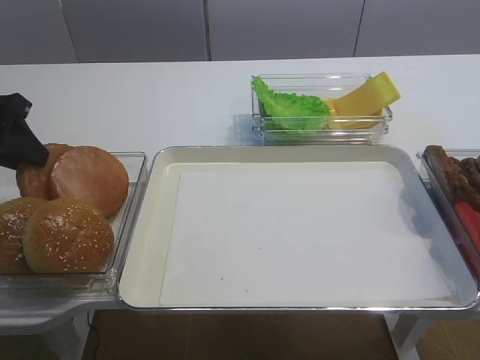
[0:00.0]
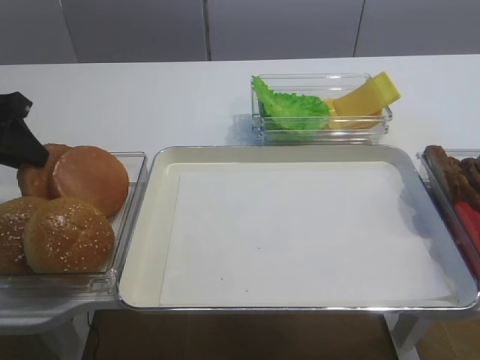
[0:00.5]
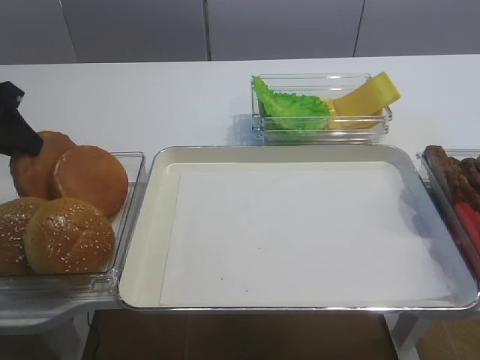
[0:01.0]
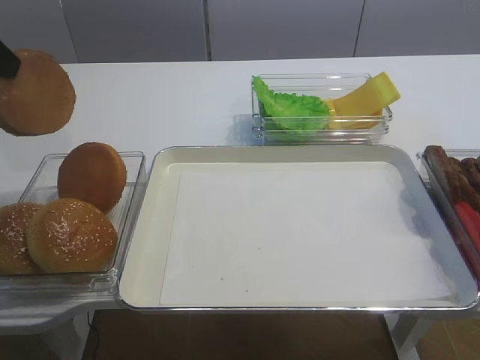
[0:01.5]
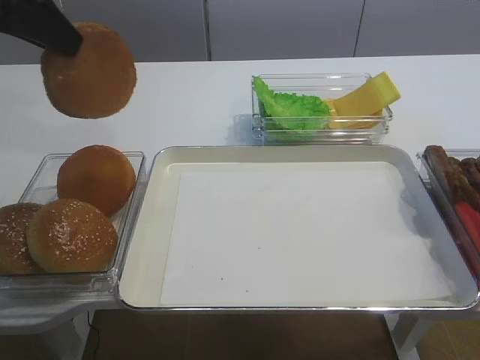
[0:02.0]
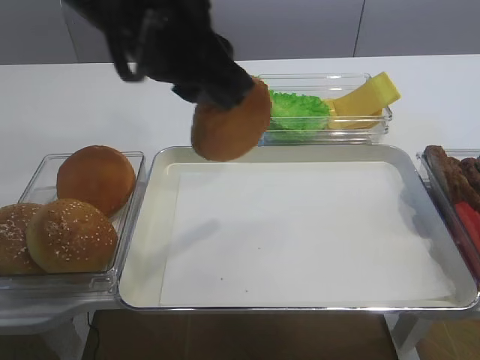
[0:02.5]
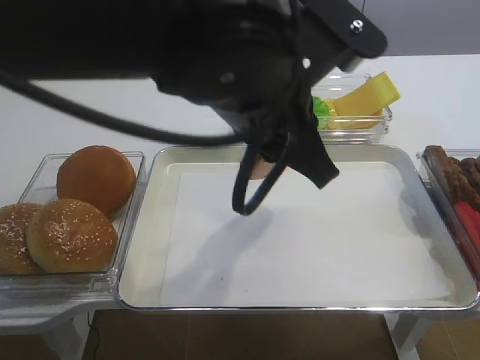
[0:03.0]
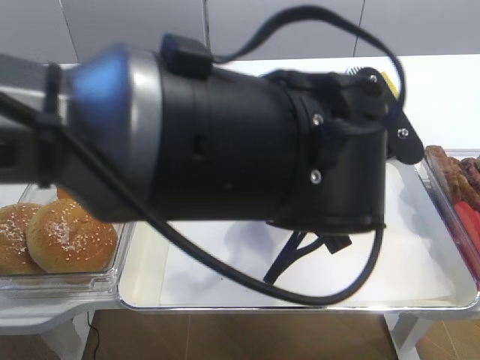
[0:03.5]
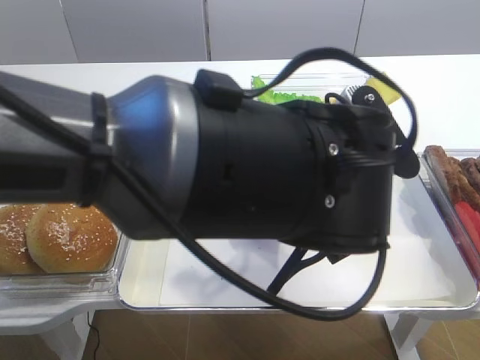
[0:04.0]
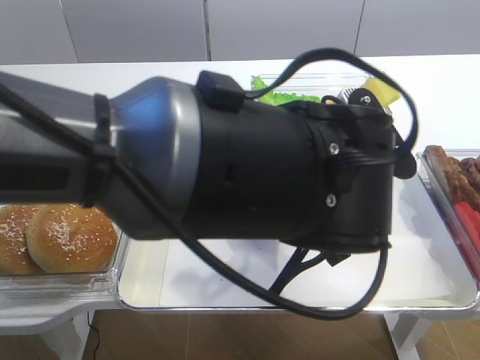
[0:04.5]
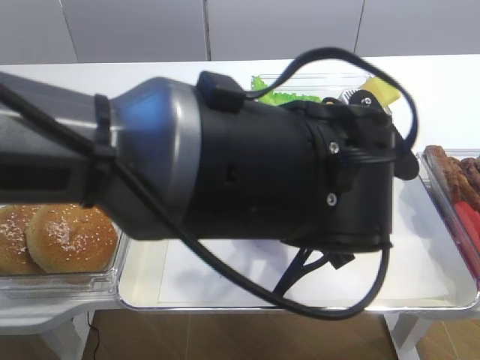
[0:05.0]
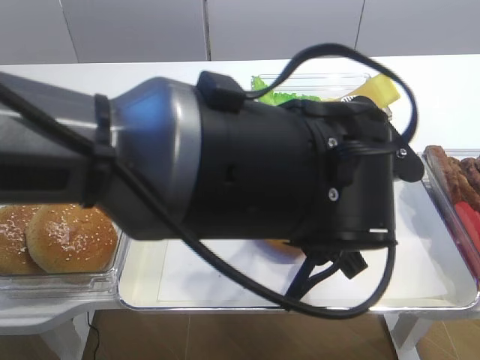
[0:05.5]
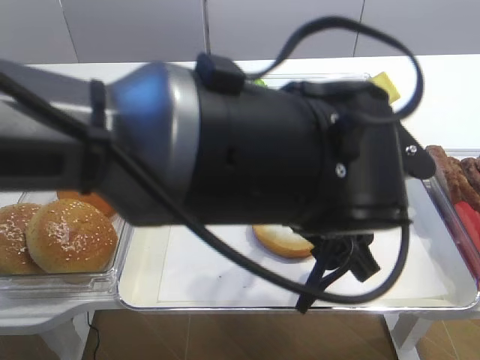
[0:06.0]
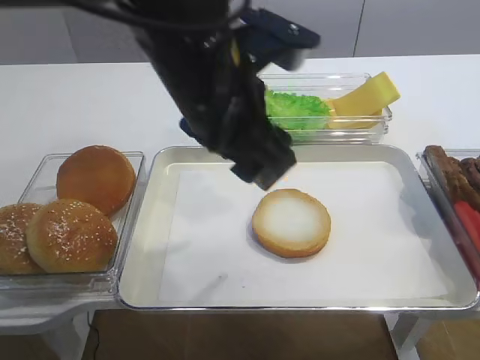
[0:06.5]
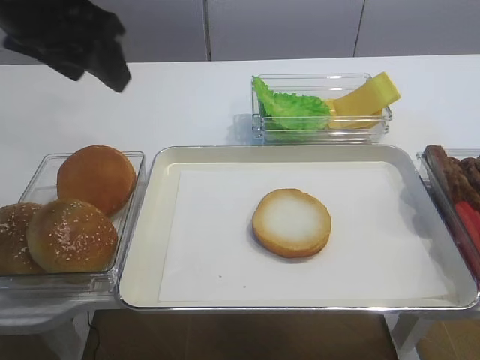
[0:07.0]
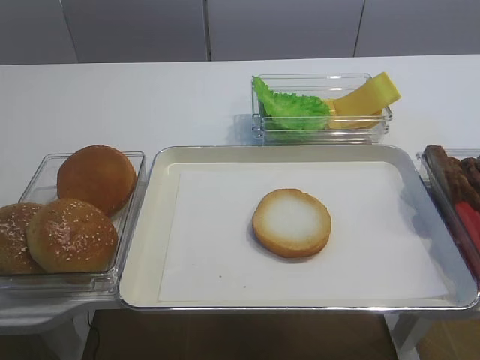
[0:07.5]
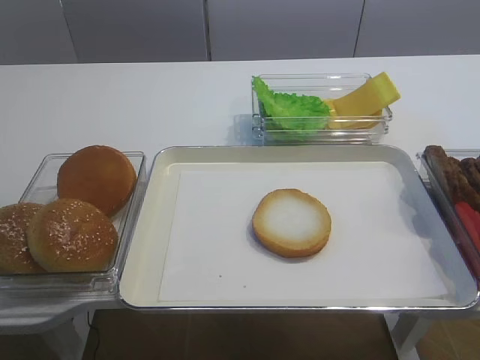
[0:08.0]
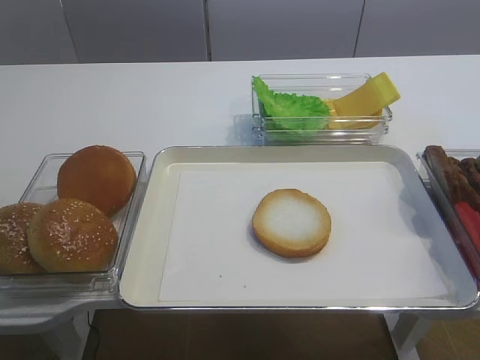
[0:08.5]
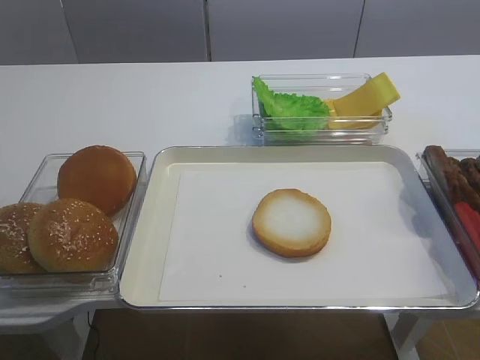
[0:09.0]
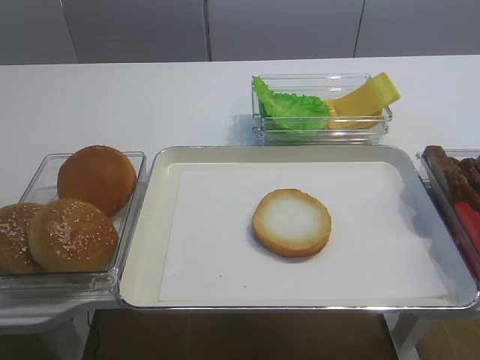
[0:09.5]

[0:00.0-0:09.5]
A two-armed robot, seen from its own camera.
Step, 0:01.5 to 0:06.0: Place the bread slice on the tray with the left gripper.
0:00.0 to 0:02.0: The left gripper moves upward and to the right, roughly 15 cm.
0:02.0 to 0:04.0: The left gripper shifts some 30 cm to the right and downward.
0:04.0 to 0:05.5: The left gripper opens.
0:05.5 to 0:07.5: The left gripper shifts some 35 cm to the left and upward.

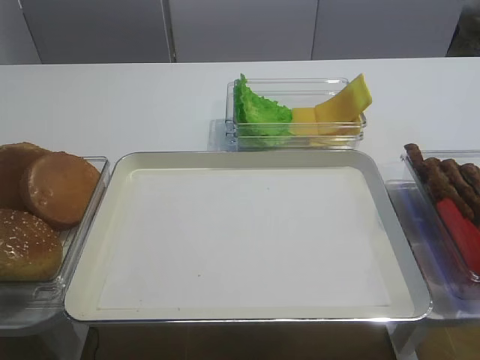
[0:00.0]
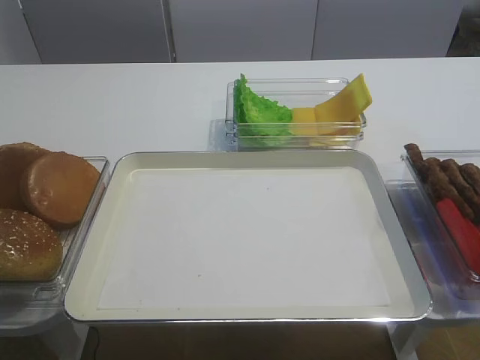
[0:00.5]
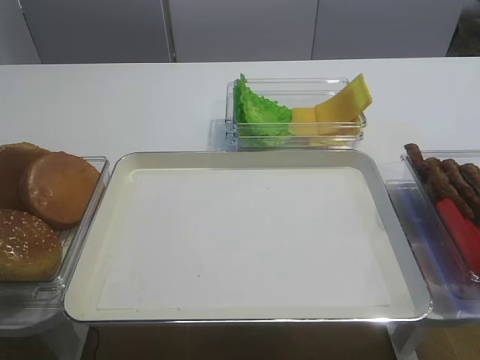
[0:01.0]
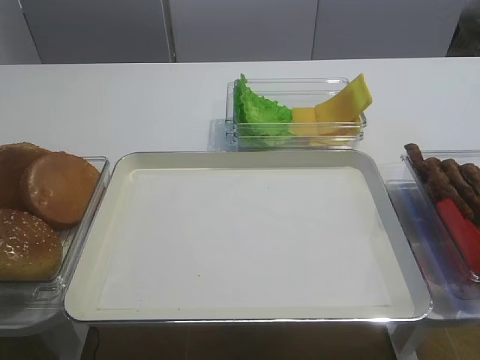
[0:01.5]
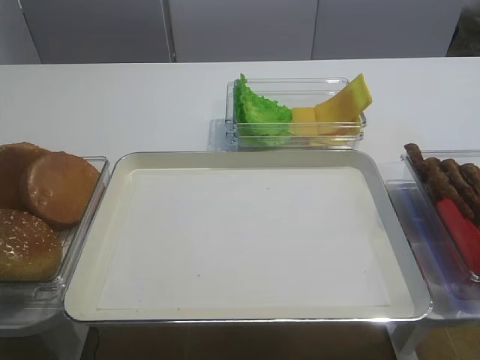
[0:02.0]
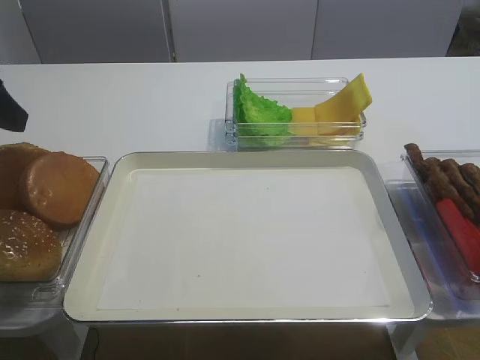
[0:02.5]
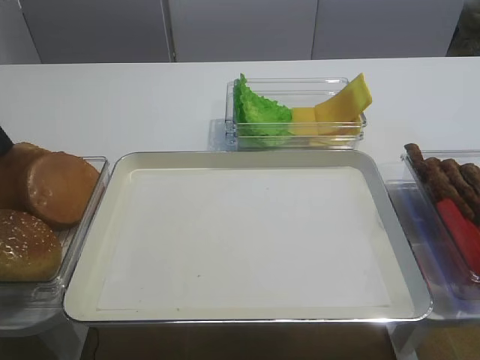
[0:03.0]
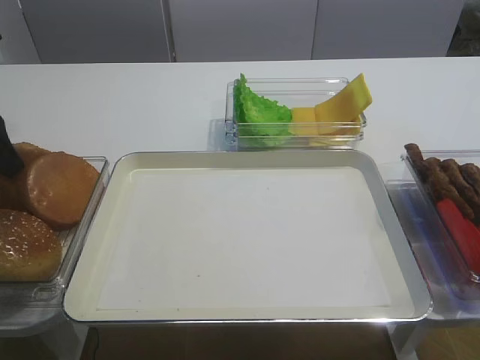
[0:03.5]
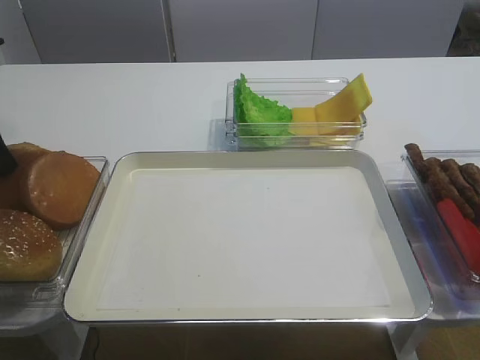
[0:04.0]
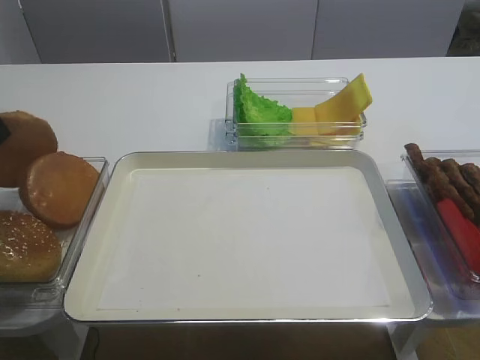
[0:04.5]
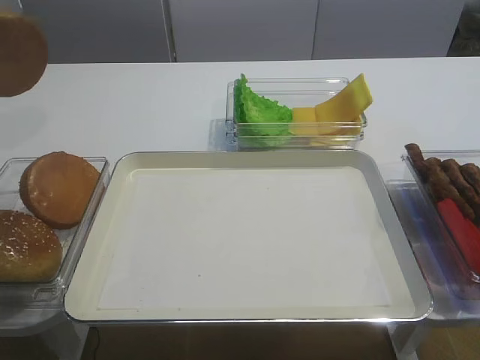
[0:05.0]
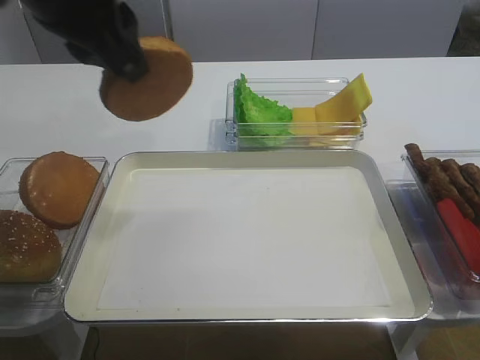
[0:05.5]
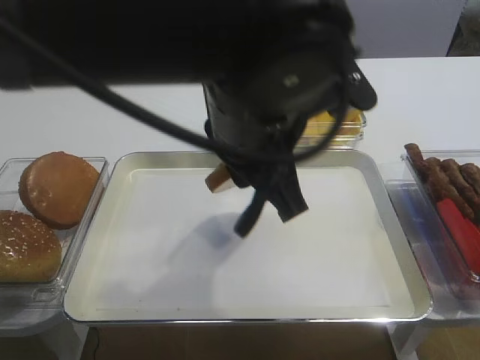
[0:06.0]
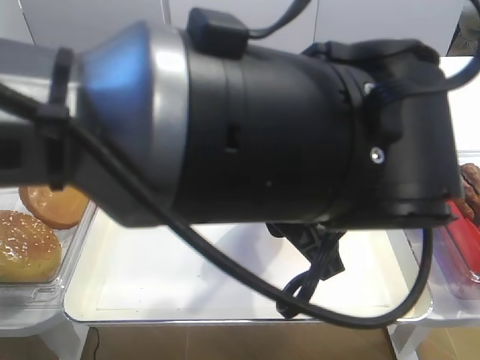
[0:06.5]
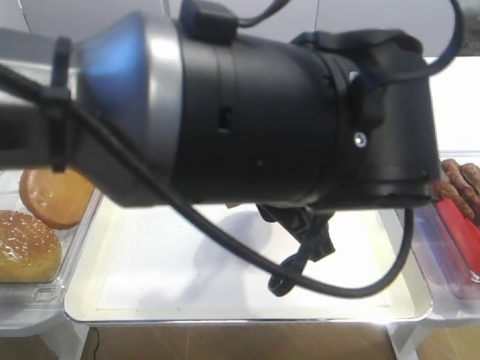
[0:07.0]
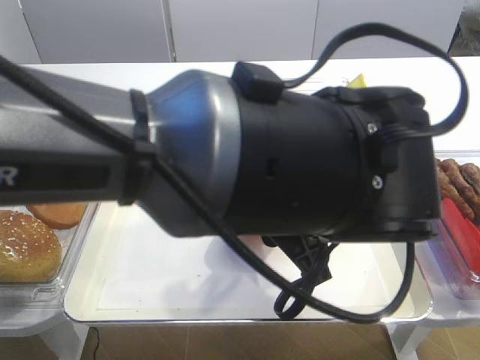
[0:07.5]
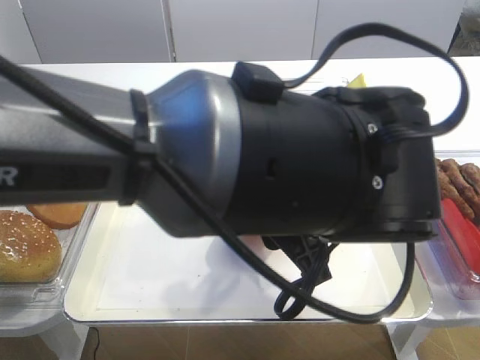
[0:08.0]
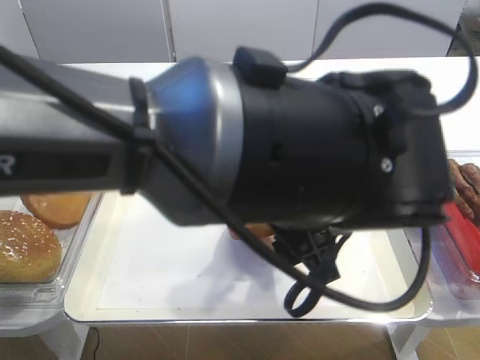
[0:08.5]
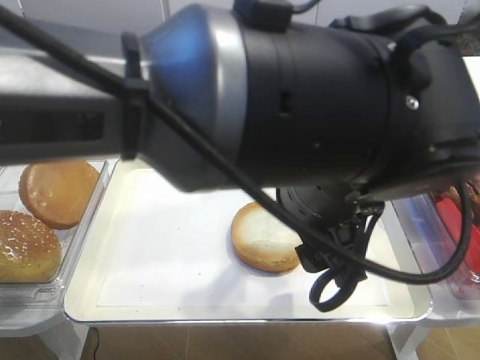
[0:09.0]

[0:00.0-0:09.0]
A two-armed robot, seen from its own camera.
0:02.0 to 0:04.5: The left gripper shifts approximately 15 cm forward, and closes.
0:04.5 to 0:07.0: The left gripper shifts about 35 cm to the right.
0:07.0 to 0:09.0: The left gripper opens its fingers.

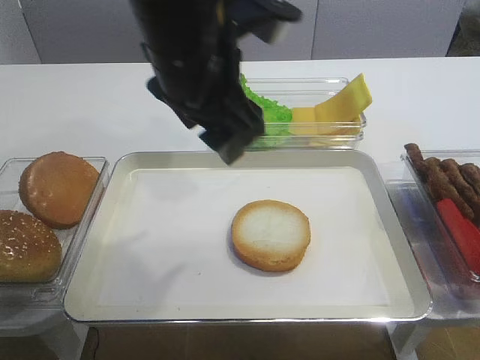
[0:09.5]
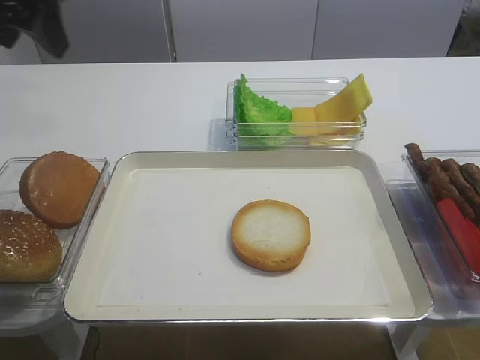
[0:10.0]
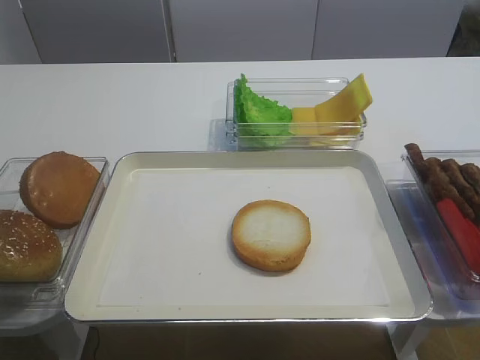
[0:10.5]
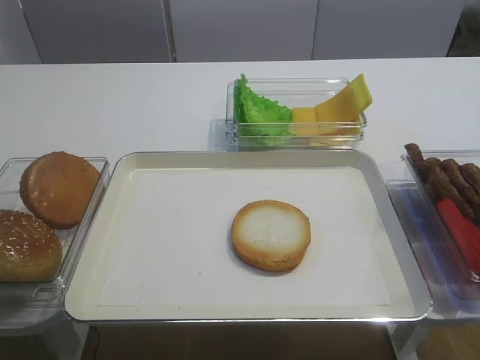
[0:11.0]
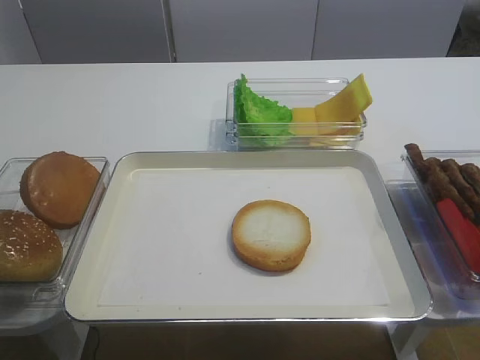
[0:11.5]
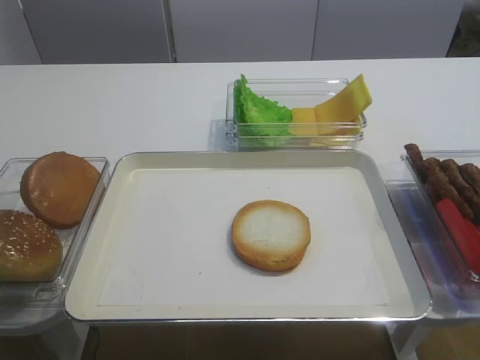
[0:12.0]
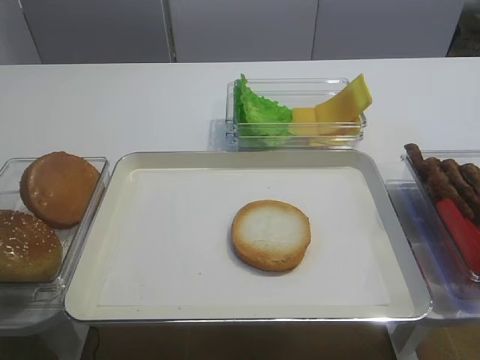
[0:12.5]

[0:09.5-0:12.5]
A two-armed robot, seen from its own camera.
0:09.5 to 0:11.0: The left gripper heads to the left and backward, covering approximately 30 cm.

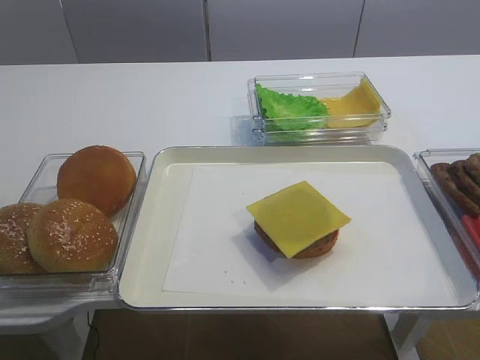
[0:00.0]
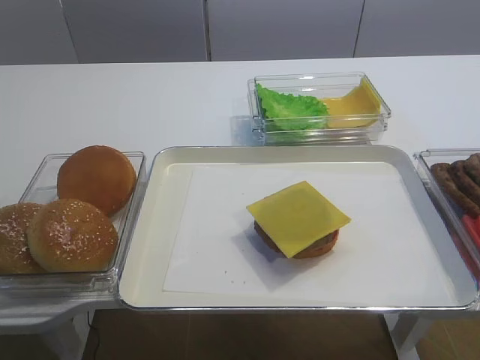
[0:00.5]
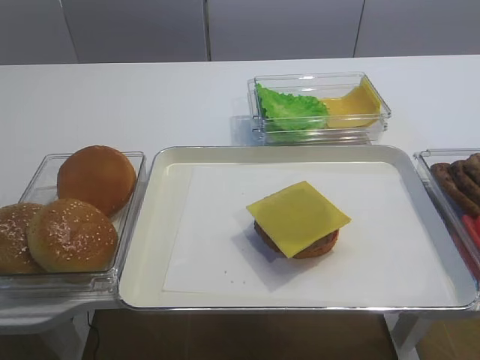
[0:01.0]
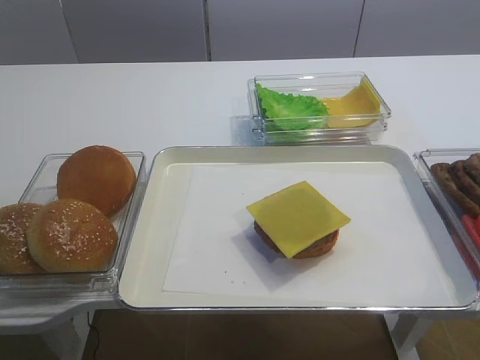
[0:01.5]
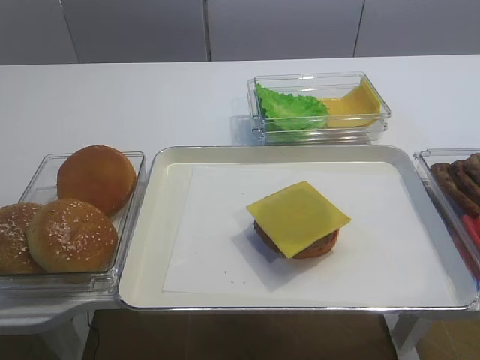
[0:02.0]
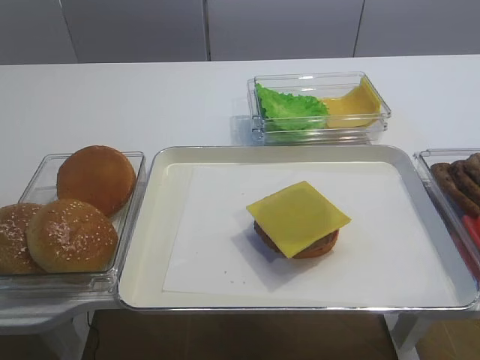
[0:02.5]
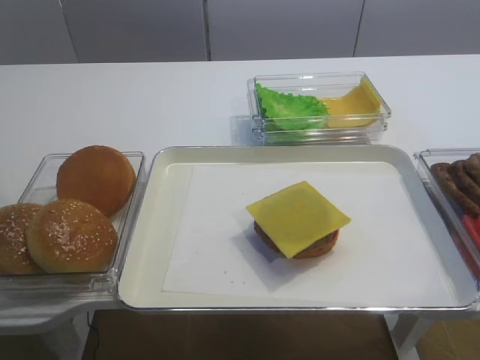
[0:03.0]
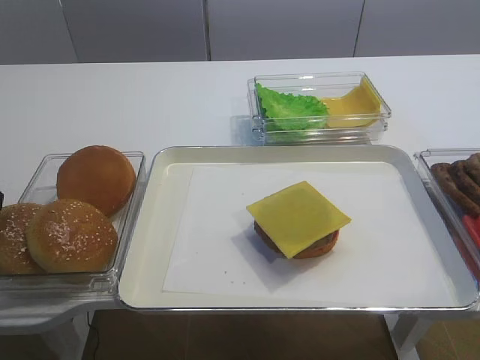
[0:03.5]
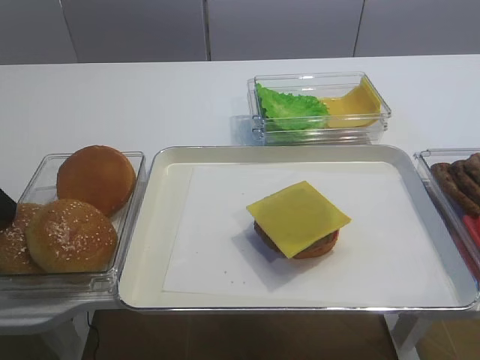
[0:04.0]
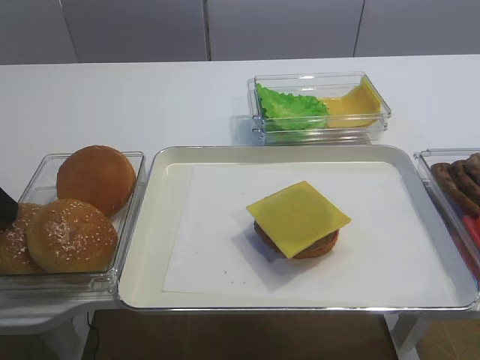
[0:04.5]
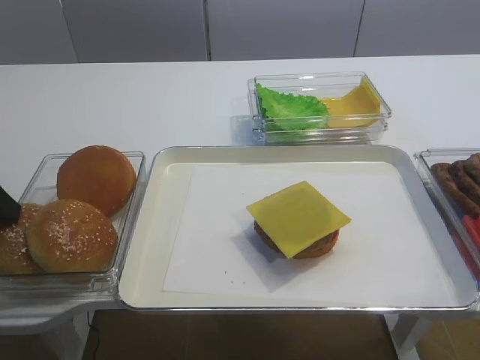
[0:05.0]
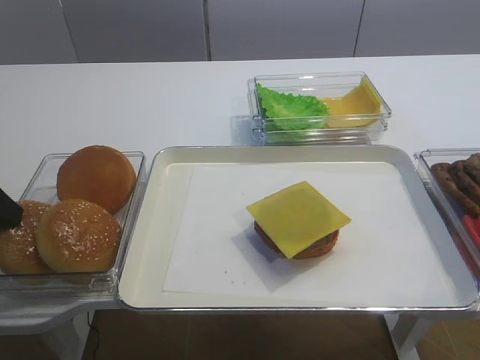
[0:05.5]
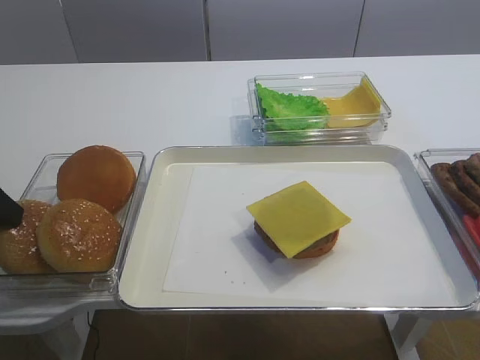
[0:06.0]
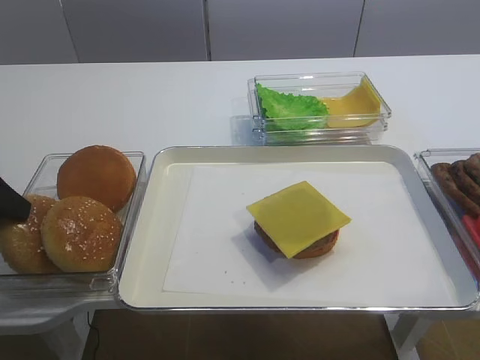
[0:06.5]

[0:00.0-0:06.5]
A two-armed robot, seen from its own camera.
0:04.5 to 0:06.5: The left gripper closes up.
